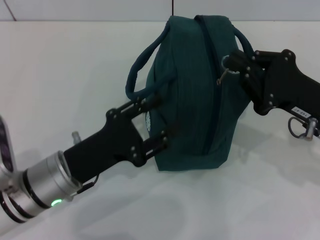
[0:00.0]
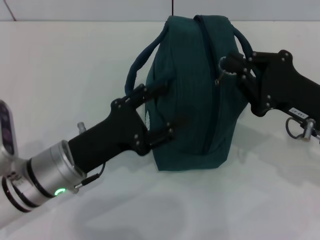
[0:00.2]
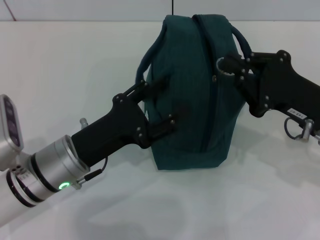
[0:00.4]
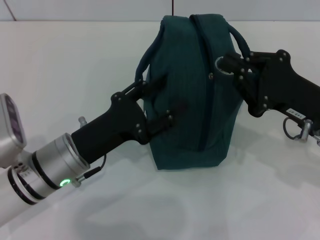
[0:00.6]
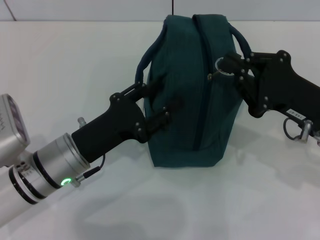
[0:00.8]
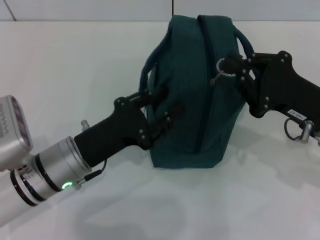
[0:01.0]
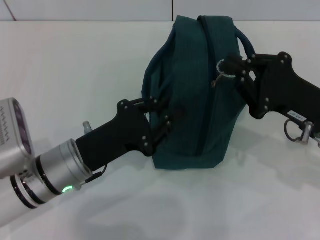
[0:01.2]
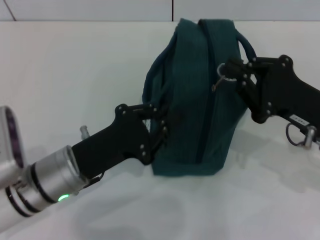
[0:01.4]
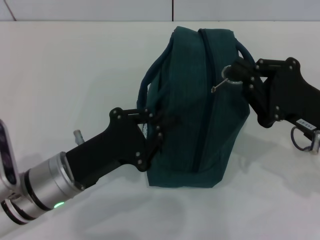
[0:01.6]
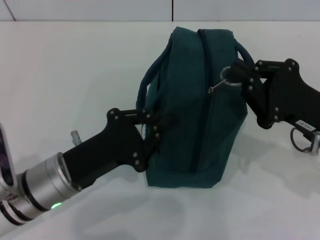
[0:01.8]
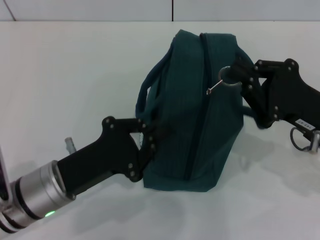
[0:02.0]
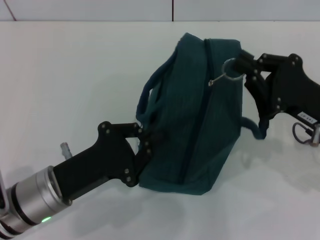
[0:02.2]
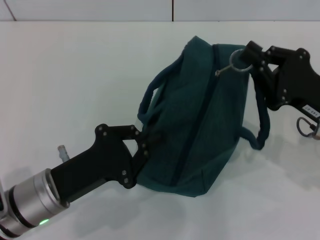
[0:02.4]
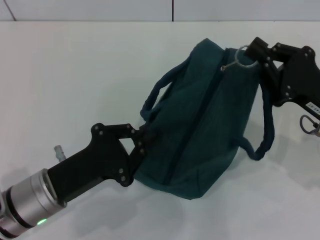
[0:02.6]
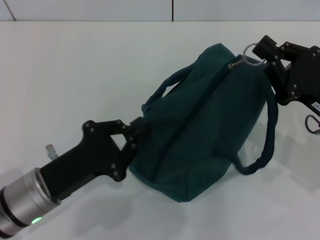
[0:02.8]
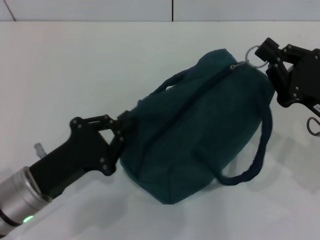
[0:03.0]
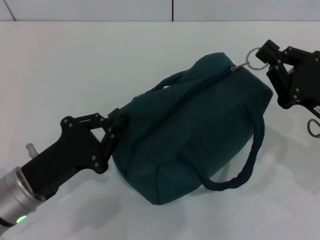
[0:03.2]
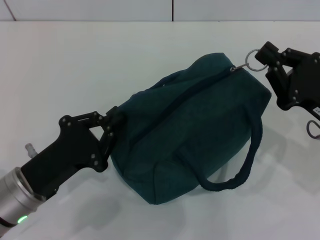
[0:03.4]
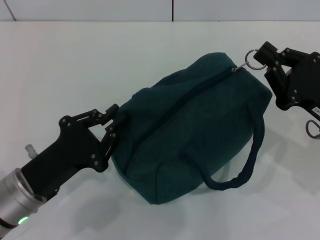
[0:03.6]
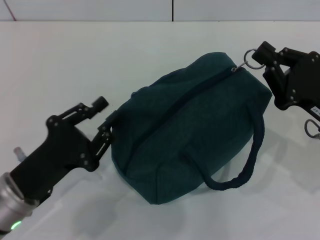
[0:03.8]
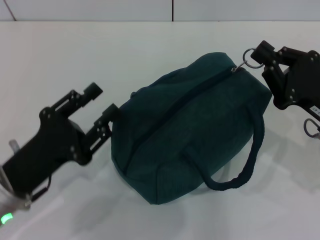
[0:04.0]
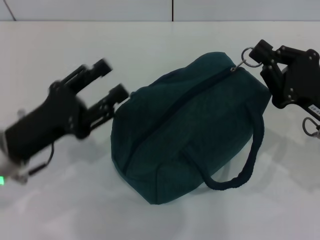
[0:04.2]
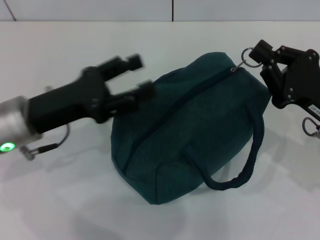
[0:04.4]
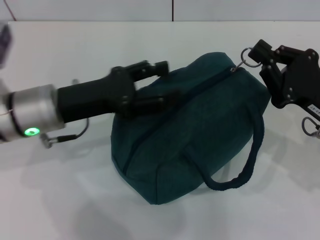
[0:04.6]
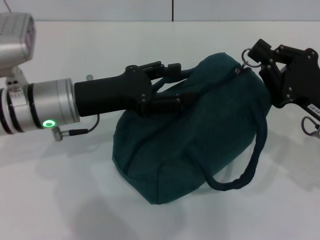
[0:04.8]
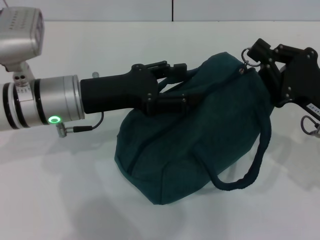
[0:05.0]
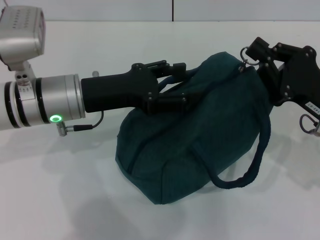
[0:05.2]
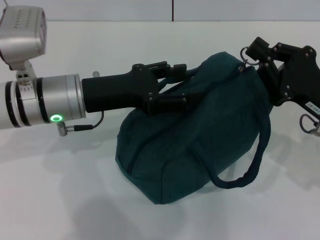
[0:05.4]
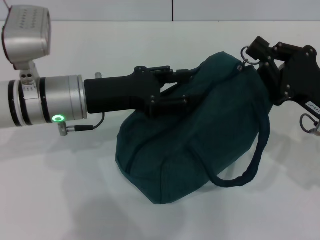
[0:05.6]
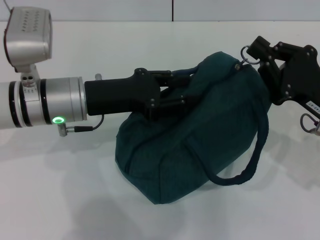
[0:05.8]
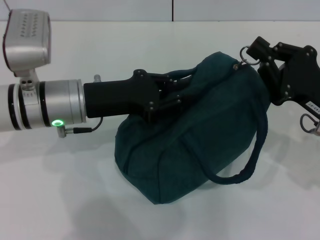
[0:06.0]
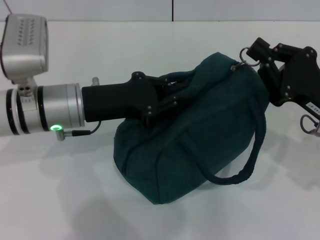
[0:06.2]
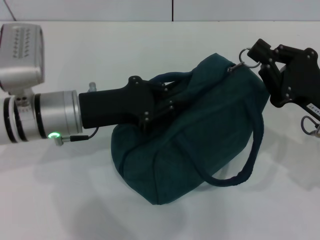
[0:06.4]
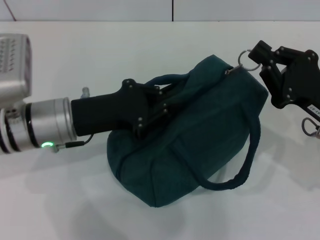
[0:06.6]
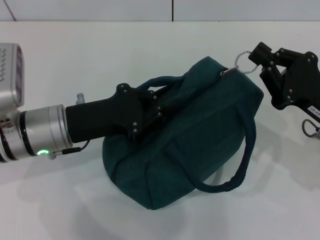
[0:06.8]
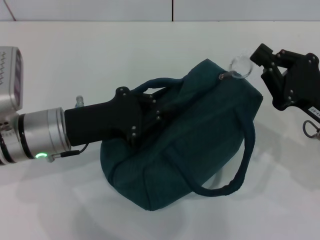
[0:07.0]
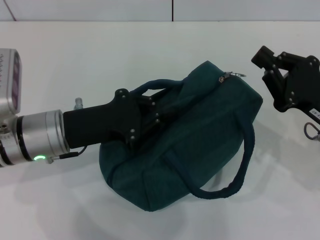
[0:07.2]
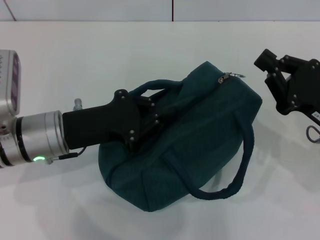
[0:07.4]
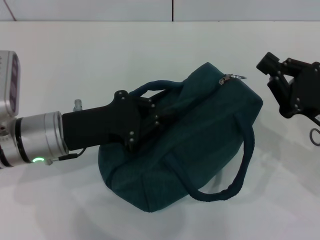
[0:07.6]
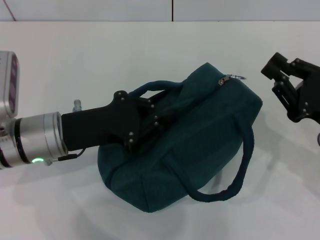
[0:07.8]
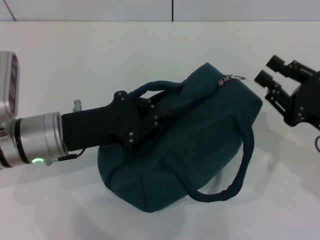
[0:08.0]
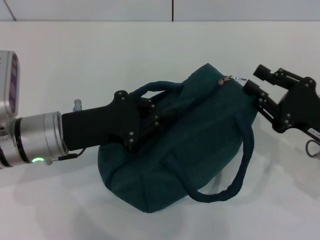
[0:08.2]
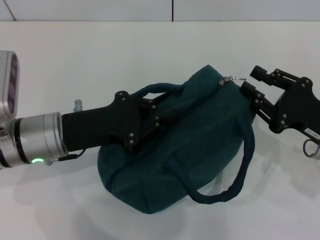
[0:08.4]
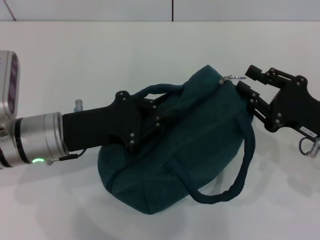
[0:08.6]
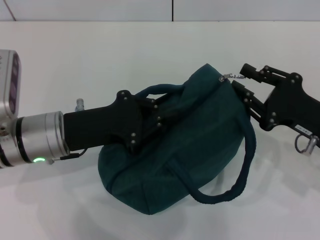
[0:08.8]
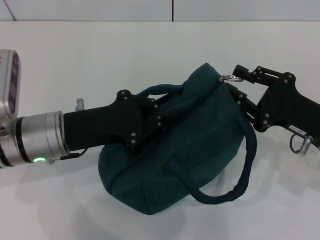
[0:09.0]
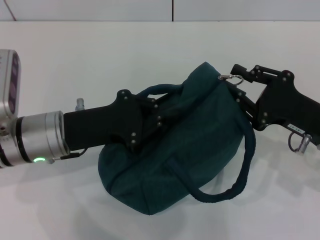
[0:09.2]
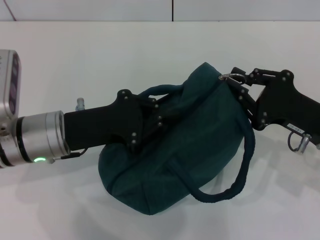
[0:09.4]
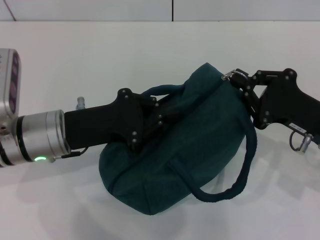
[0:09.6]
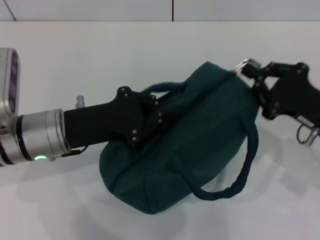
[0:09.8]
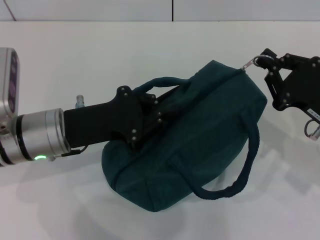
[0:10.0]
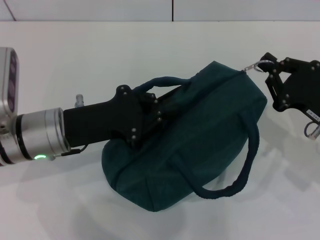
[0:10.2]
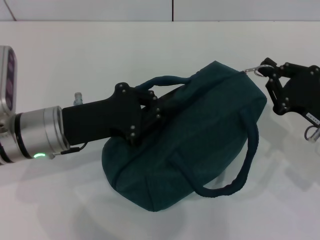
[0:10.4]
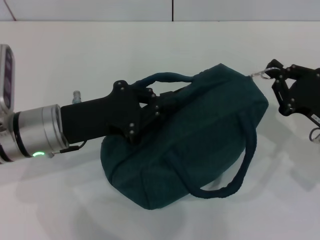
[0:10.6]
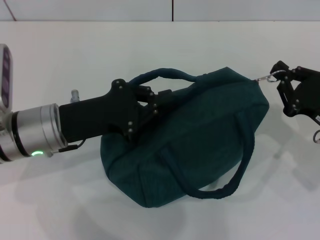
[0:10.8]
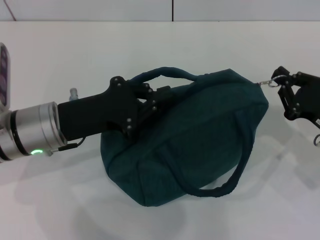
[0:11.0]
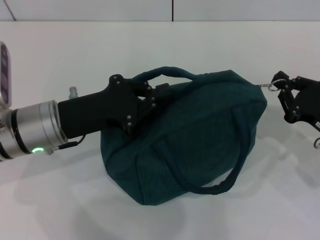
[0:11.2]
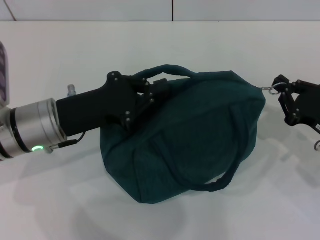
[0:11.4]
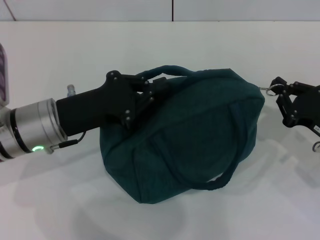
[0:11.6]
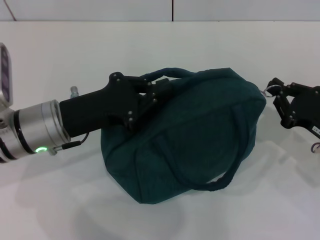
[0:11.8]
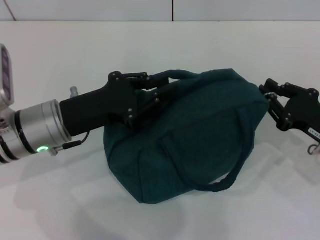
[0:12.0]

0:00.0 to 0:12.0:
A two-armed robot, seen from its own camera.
0:00.0 to 0:01.6: The left gripper closes up.
0:03.0 to 0:04.4: The left gripper shifts approximately 10 cm forward and upward, and opens up.
0:04.4 to 0:06.0: The left gripper heads to the right, covering about 5 cm, and closes up.
0:06.0 to 0:07.6: The left gripper changes place by some 5 cm.
0:07.6 to 0:10.4: There are only small adjustments of the grippers.
0:10.4 to 0:12.0: There are only small adjustments of the grippers.

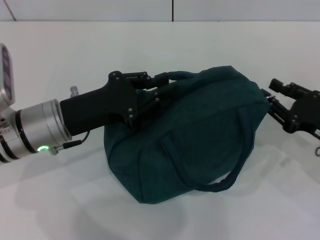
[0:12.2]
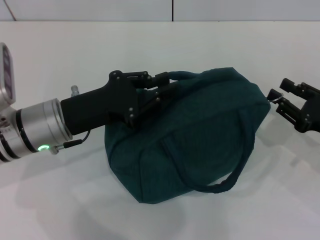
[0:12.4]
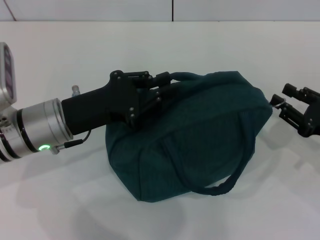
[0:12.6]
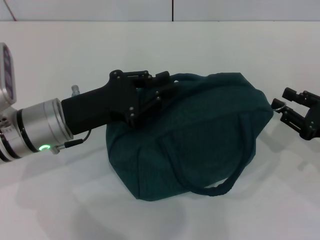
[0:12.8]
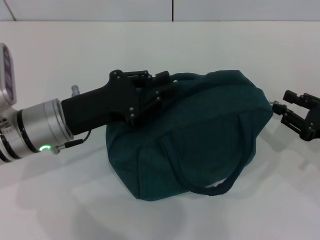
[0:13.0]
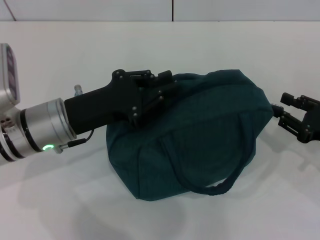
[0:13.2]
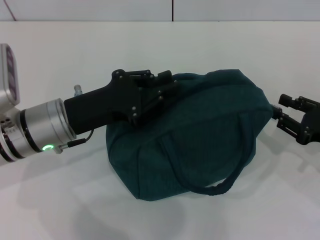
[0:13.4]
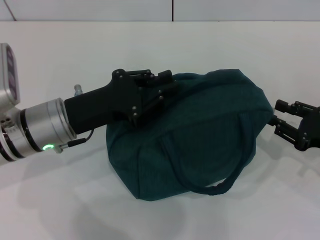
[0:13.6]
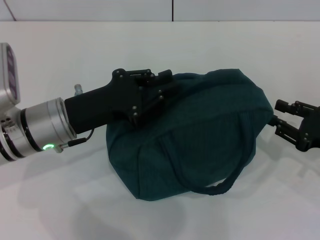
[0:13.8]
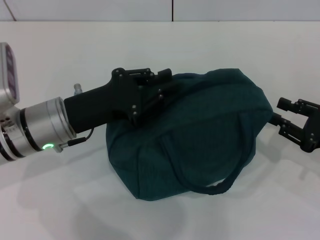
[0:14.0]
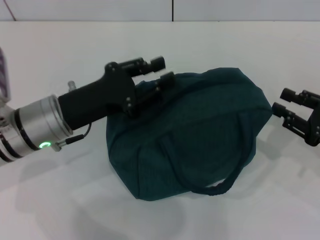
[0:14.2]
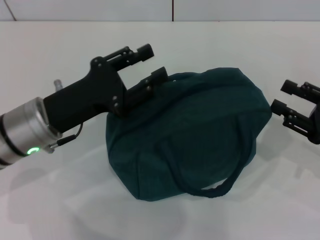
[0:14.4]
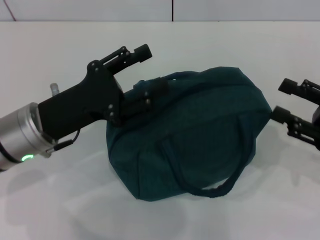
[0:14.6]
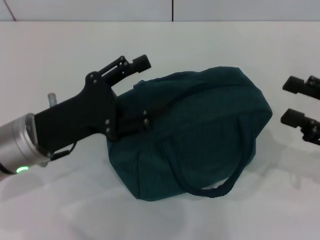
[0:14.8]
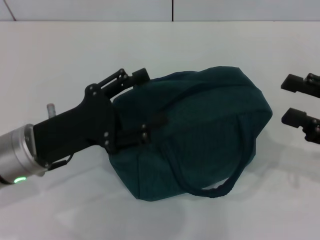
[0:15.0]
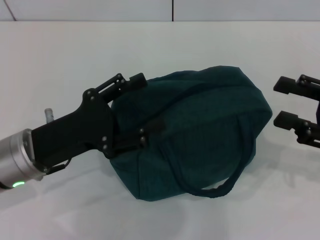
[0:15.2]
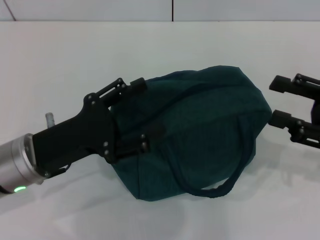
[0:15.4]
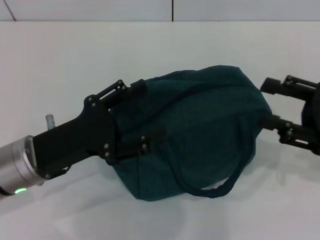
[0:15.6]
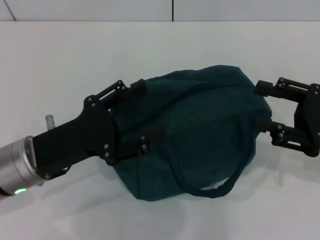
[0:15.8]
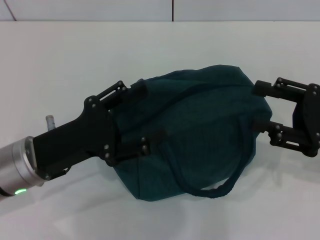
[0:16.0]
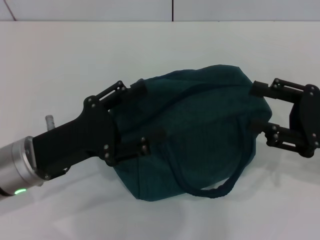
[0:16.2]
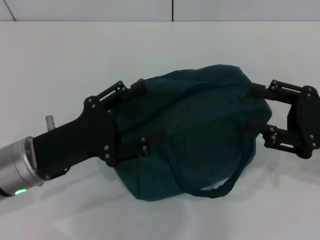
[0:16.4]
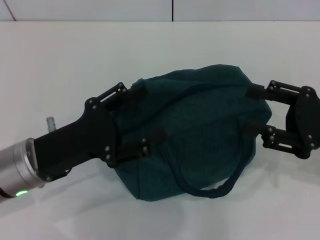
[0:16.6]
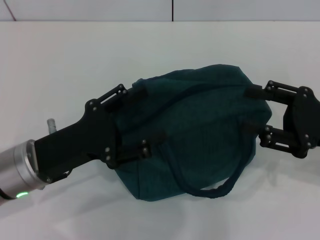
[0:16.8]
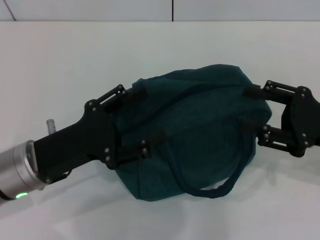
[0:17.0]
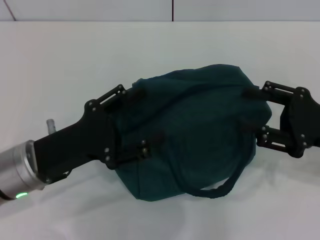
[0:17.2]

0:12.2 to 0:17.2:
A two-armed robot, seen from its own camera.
0:12.2 to 0:13.8: There are only small adjustments of the grippers.
0:13.8 to 0:15.6: The right gripper is displaced upward by some 5 cm. Meanwhile the left gripper goes roughly 5 cm backward, and opens up.
0:15.6 to 0:17.2: The grippers stay close to where they were, moving slightly.

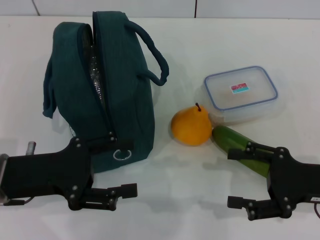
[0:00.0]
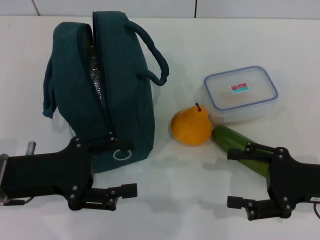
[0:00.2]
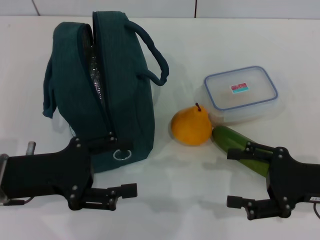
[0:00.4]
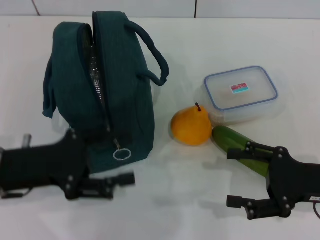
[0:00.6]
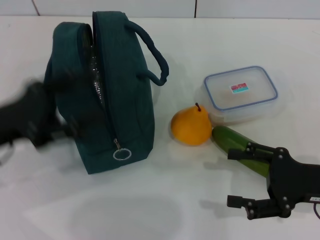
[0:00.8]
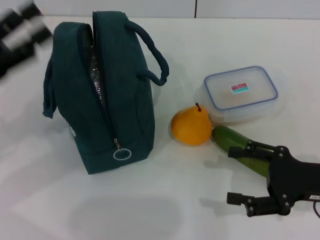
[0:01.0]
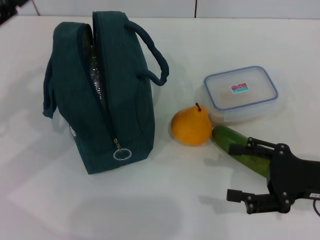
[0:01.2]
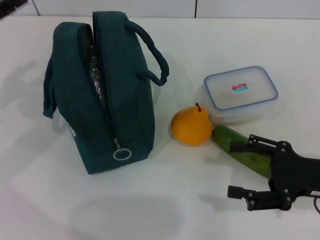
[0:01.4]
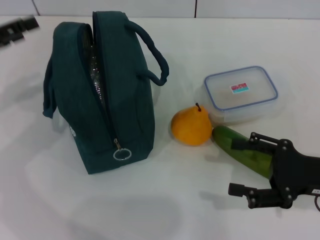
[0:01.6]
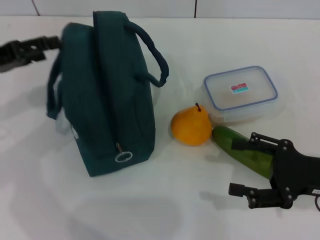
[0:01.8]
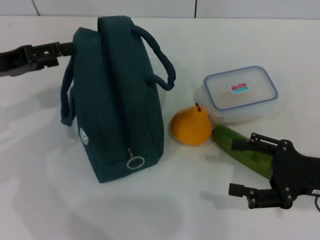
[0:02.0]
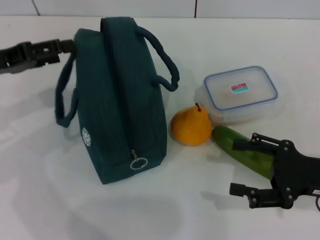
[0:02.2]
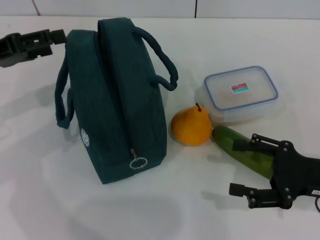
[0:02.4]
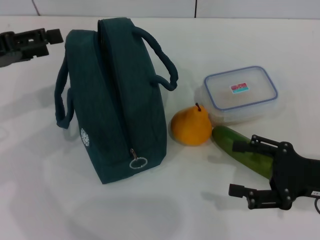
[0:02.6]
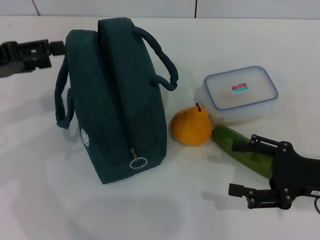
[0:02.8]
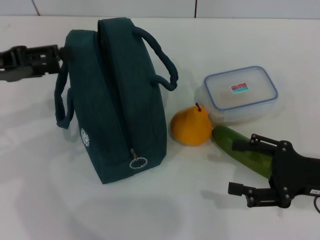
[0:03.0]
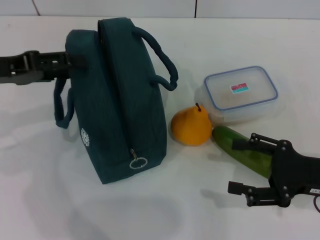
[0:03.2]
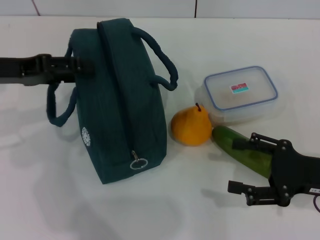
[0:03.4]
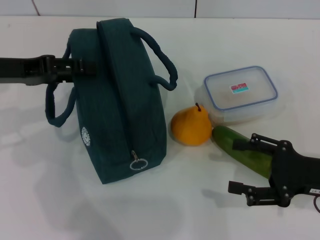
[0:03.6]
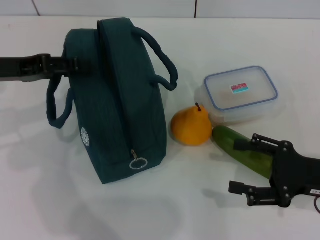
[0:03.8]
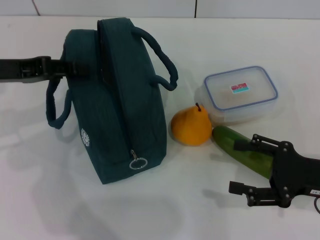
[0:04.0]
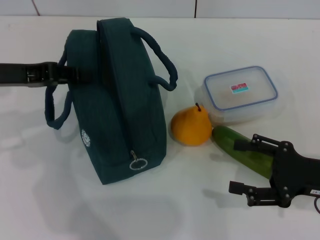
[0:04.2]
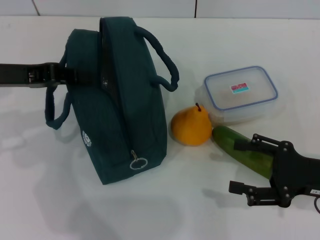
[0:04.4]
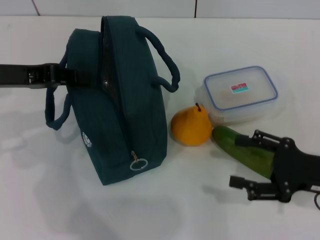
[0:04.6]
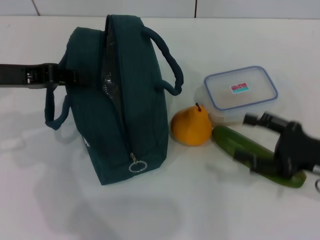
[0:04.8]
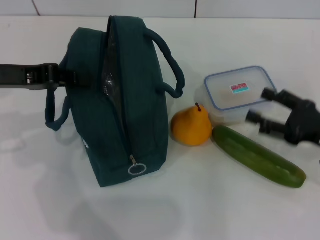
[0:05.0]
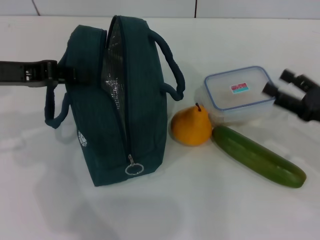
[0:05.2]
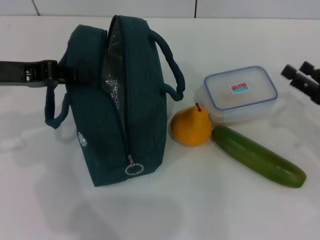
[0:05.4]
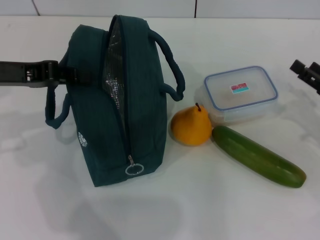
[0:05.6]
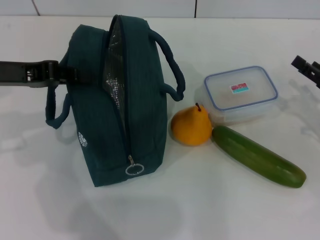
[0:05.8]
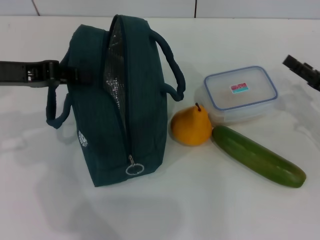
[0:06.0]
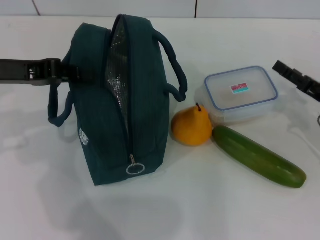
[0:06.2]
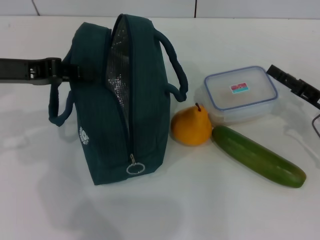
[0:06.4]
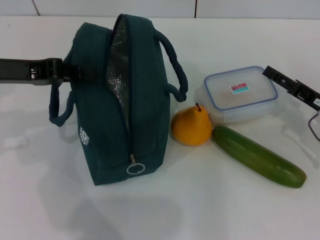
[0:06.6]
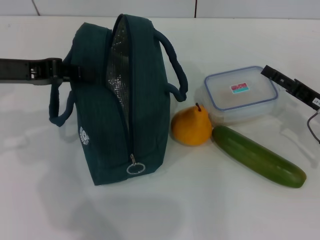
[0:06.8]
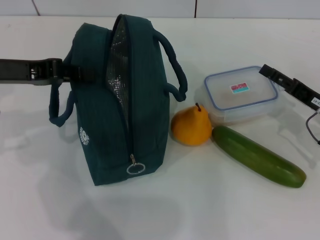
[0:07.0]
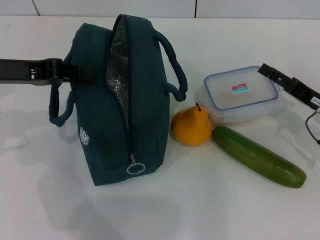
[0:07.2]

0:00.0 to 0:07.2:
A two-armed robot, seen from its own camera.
Step, 0:00.0 to 0:04.2: Hold the lunch bag with your left hand.
0:00.0 to 0:01.4: The left gripper shifts approximately 15 cm to the left, forward and upward.
0:02.8 to 0:04.4: The left gripper closes up.
0:04.4 to 0:05.8: The right gripper heads forward, covering about 5 cm.
0:05.8 to 0:07.2: The grippers make only small movements.
